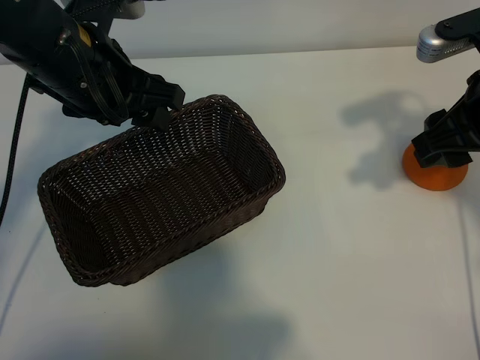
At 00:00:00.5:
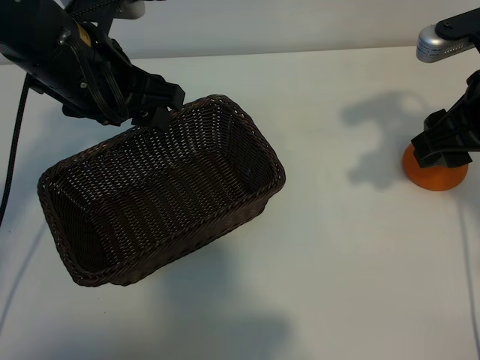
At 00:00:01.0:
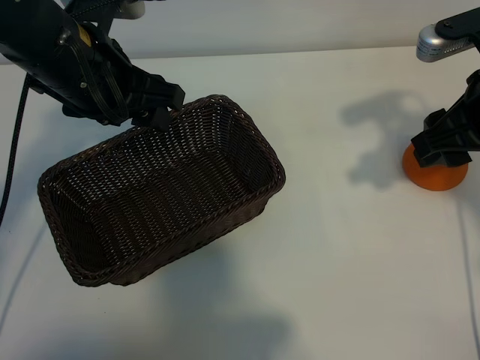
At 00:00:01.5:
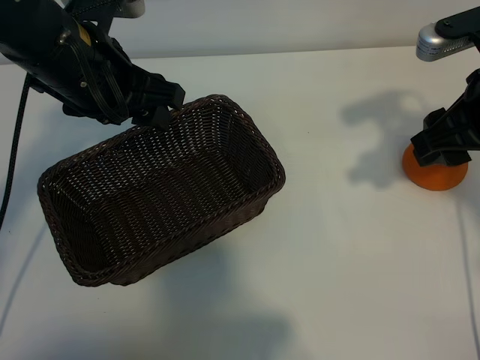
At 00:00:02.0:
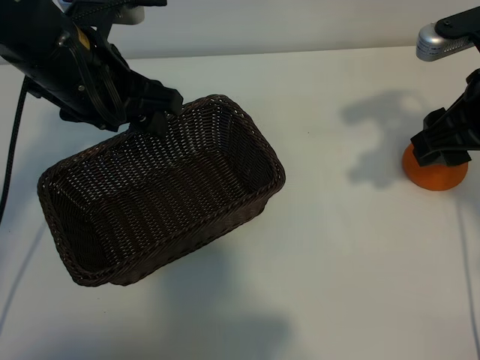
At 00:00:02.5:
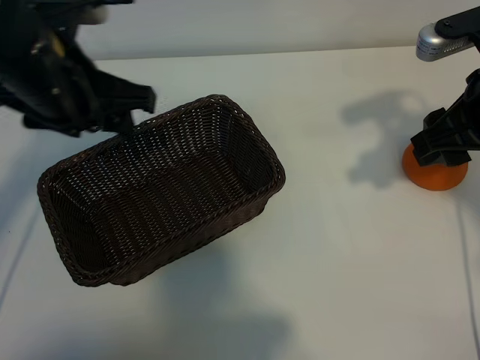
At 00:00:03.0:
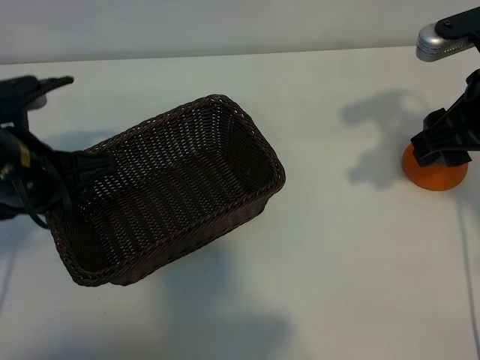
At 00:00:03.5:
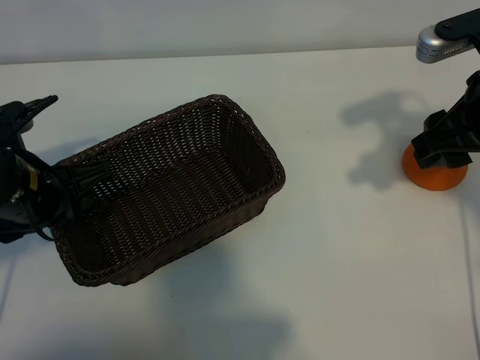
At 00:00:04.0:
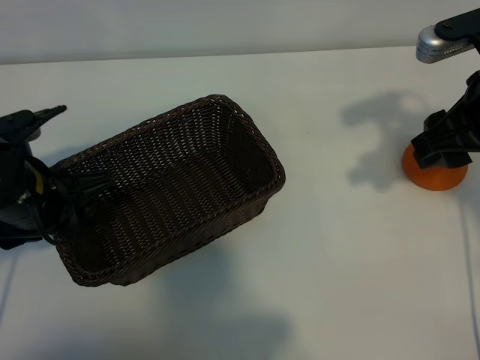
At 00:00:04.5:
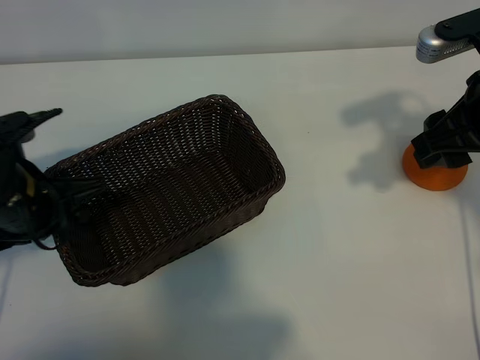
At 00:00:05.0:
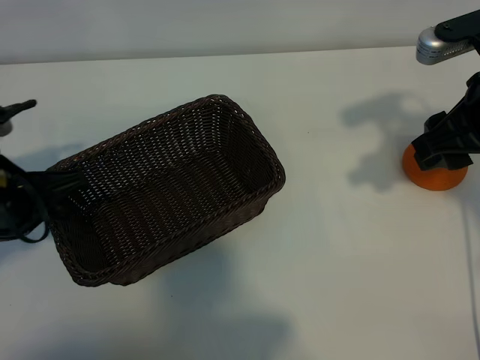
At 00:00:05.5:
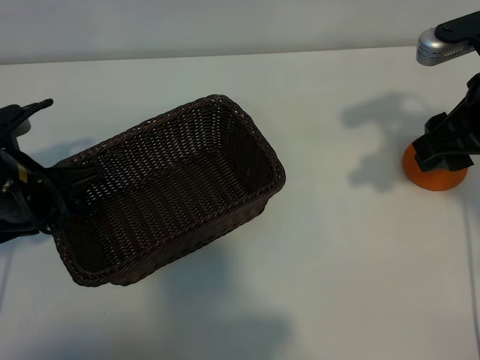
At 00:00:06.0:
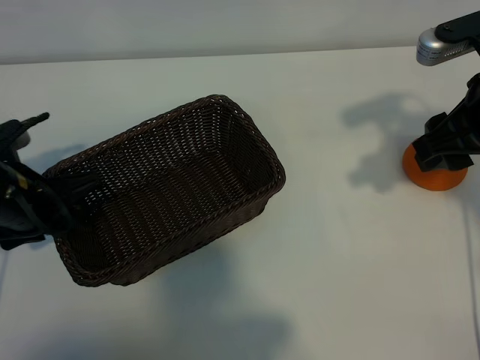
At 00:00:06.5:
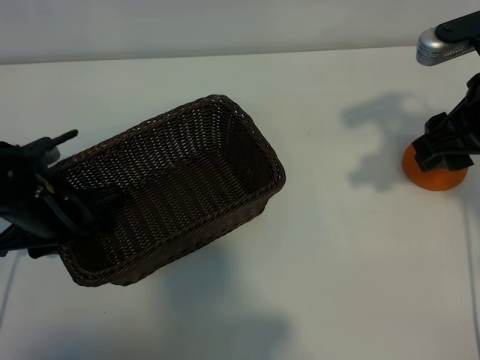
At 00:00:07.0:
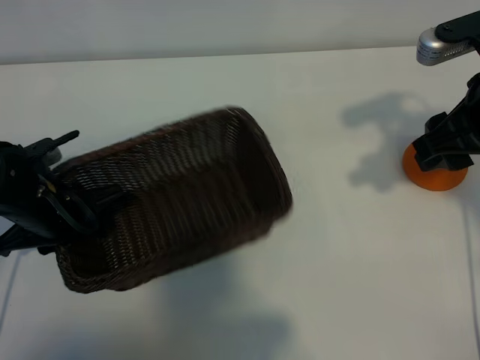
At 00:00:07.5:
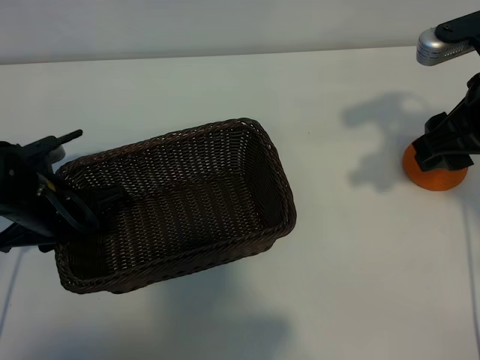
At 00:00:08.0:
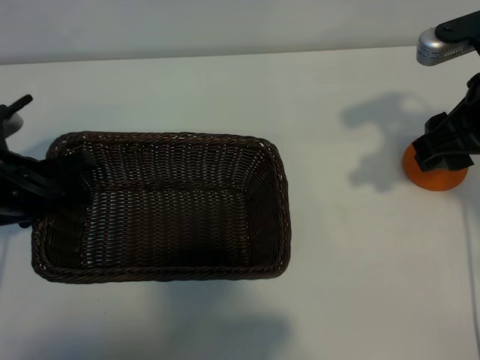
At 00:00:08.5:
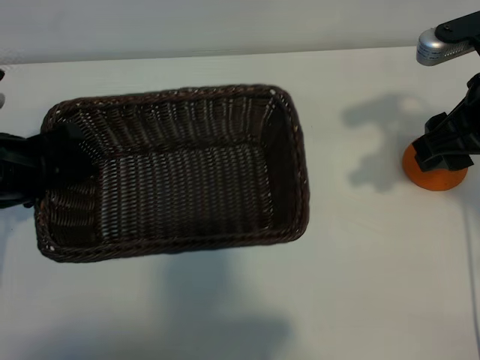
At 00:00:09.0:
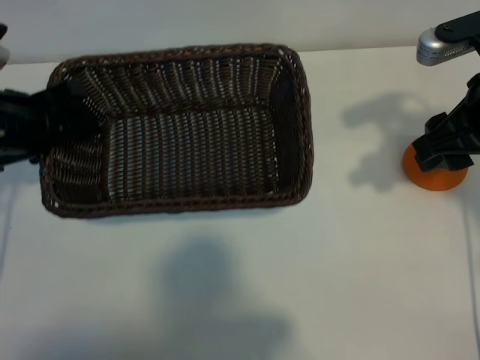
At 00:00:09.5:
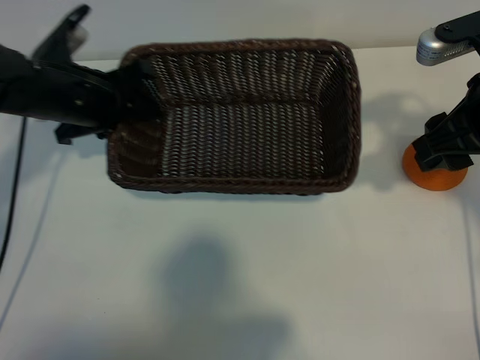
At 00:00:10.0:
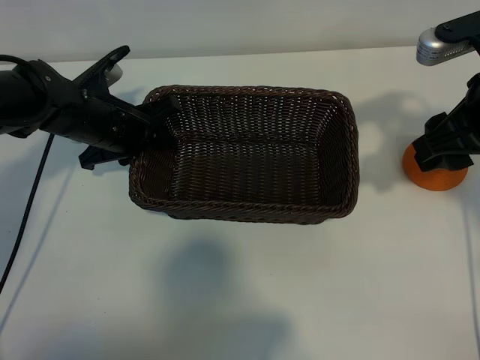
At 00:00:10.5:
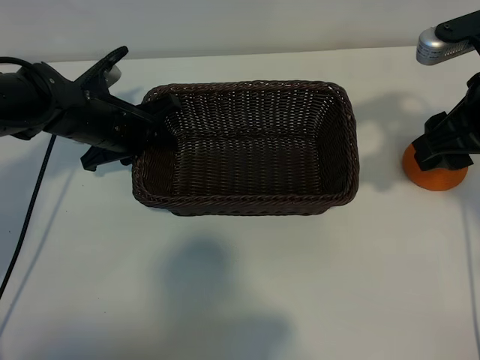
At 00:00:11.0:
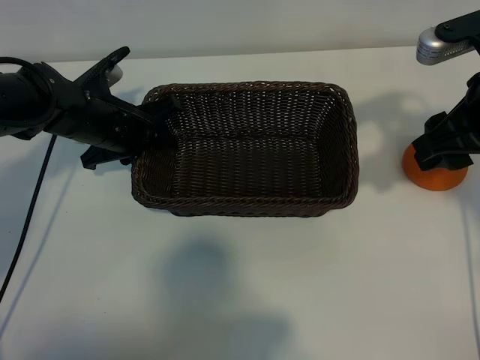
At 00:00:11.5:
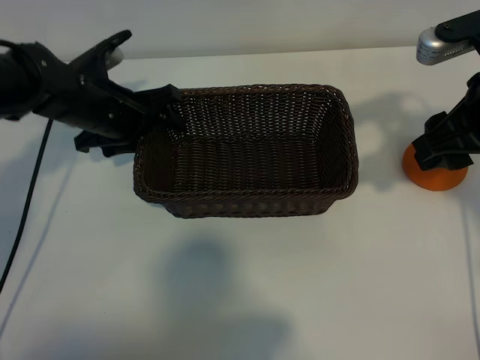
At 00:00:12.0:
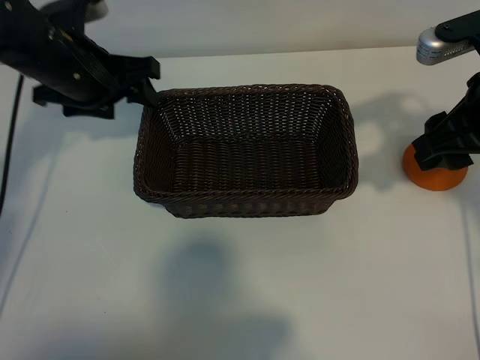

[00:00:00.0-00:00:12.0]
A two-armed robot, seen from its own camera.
Task of the whole recording: pick up the orange and put it into the basket.
Step, 00:00:02.0 to 00:00:07.0: Grasp the basket with left gripper.
Step, 00:00:07.5 to 00:00:11.0: Place the basket in the center of view with left gripper.

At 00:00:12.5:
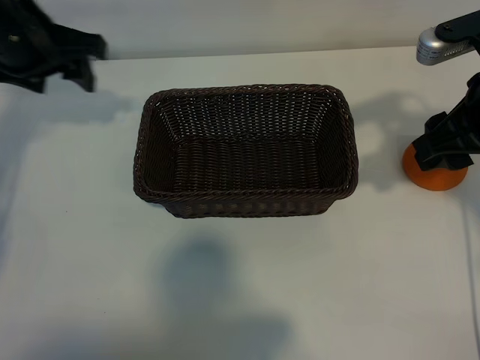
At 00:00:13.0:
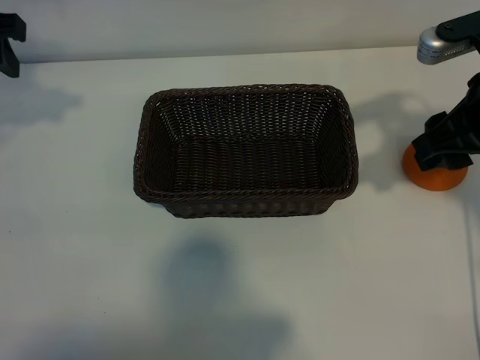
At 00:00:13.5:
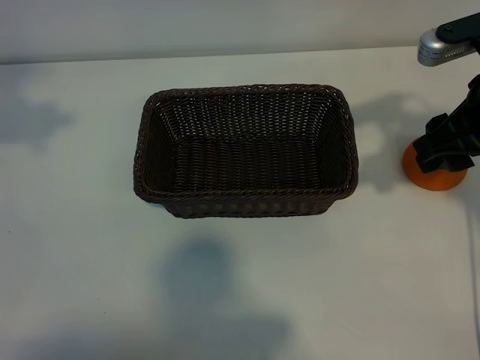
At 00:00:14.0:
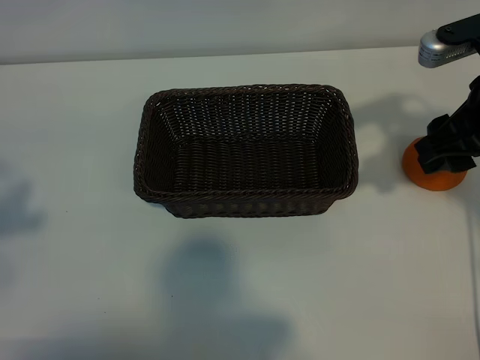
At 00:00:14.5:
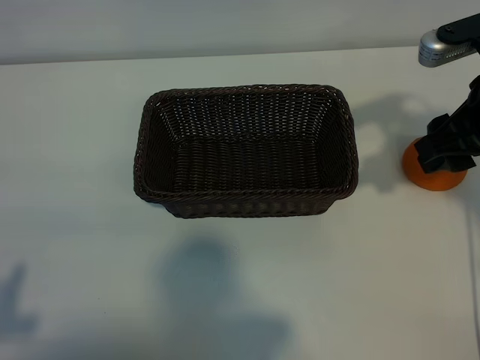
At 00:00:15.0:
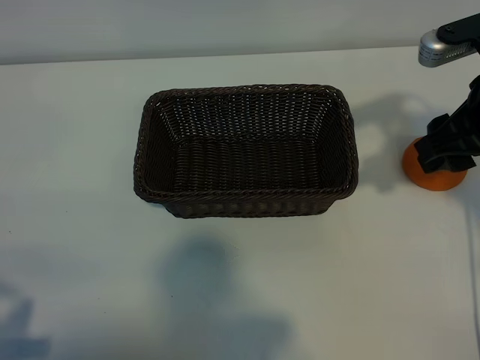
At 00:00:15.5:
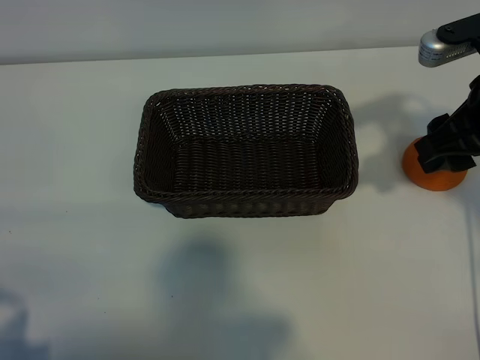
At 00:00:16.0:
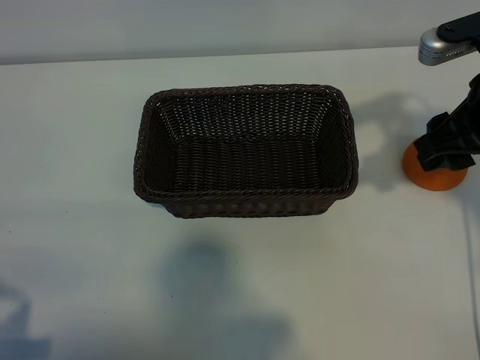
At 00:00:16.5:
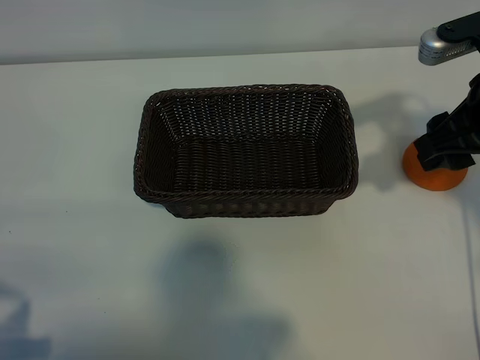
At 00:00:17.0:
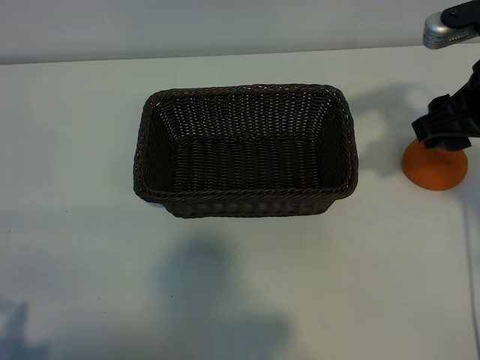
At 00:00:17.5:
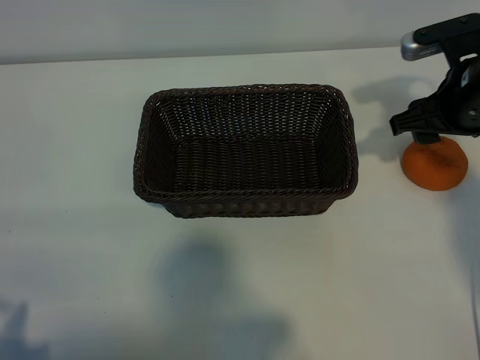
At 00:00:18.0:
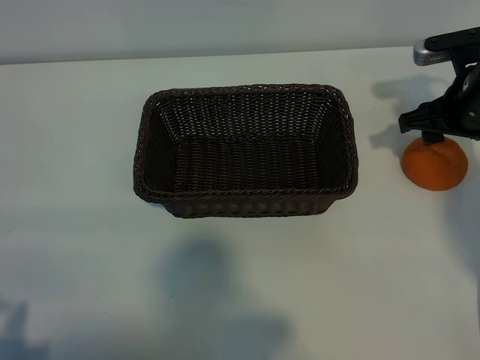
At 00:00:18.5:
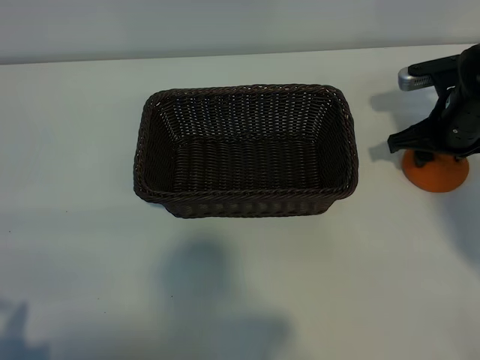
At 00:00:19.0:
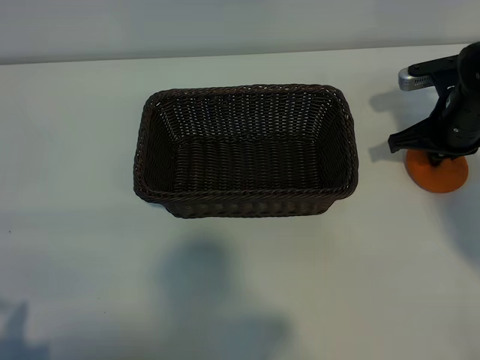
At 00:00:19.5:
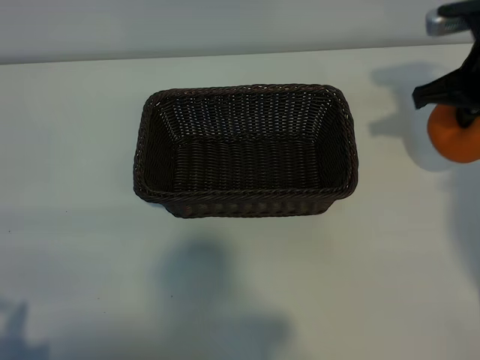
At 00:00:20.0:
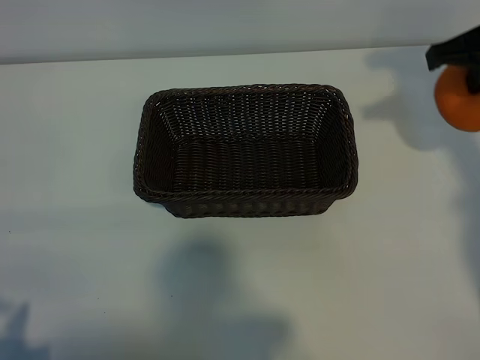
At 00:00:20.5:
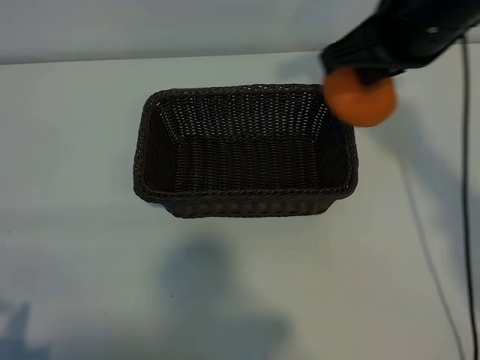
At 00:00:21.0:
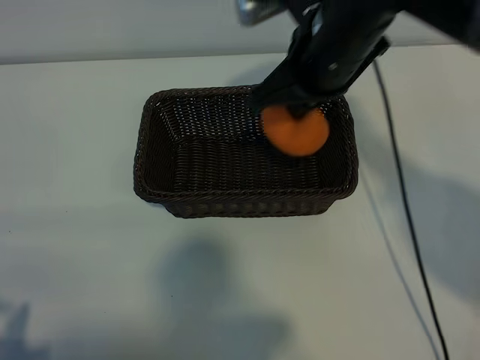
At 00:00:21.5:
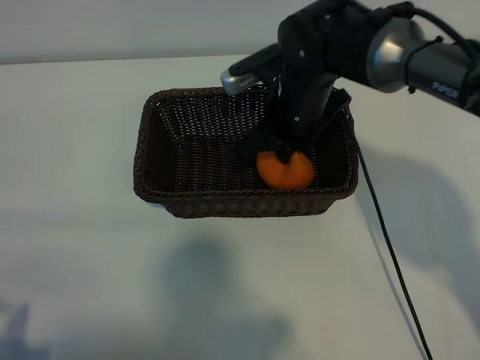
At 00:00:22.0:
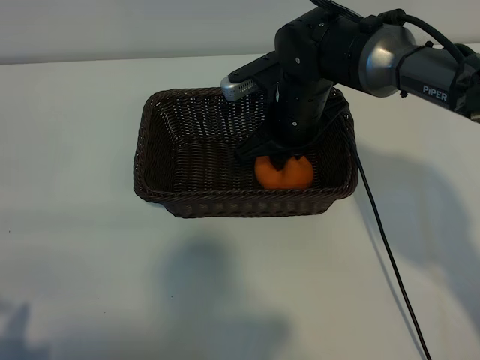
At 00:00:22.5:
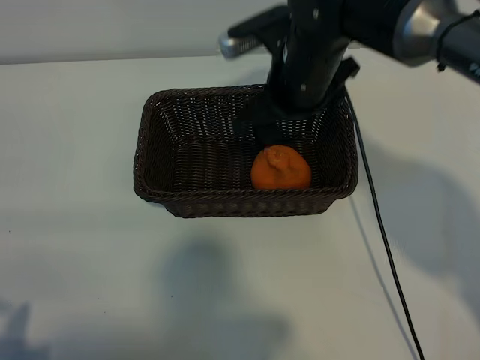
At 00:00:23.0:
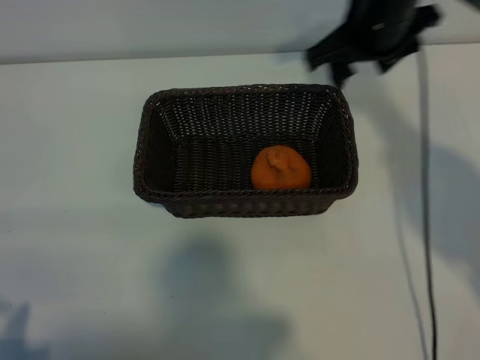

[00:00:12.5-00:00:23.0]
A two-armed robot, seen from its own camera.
Task of the whole recording: pick up the orange and put it into the basket.
Step, 00:00:12.5 to 00:00:18.5: Grasp the orange with right gripper.
Step, 00:00:19.0 to 00:00:22.0: Place the orange in the basket with right gripper.
